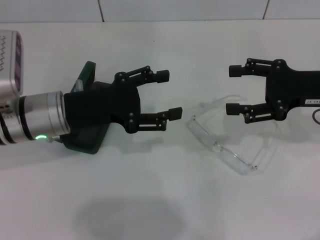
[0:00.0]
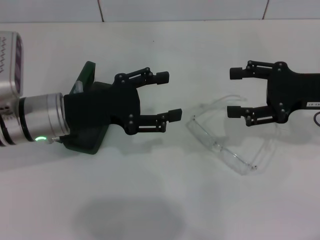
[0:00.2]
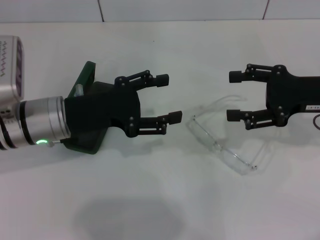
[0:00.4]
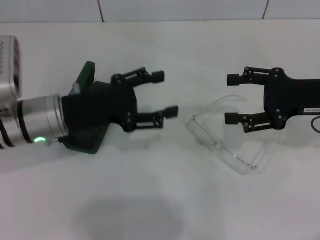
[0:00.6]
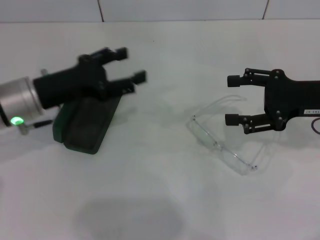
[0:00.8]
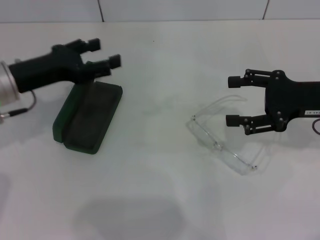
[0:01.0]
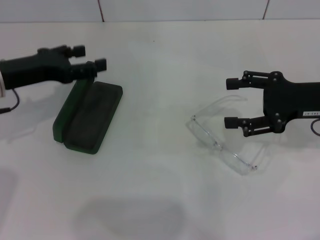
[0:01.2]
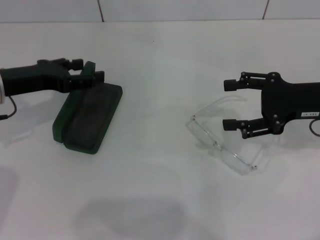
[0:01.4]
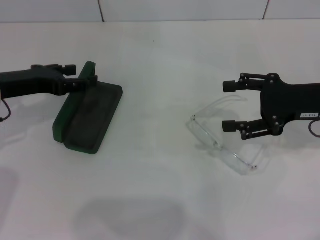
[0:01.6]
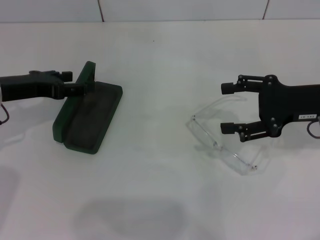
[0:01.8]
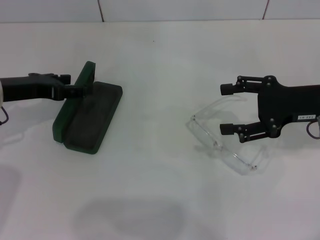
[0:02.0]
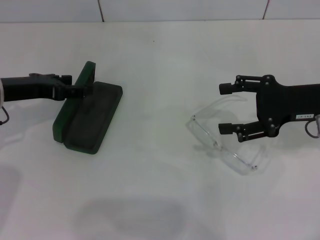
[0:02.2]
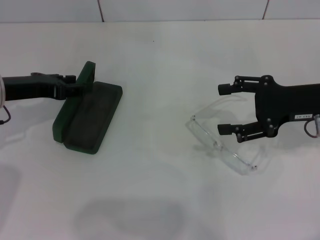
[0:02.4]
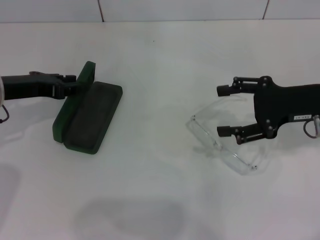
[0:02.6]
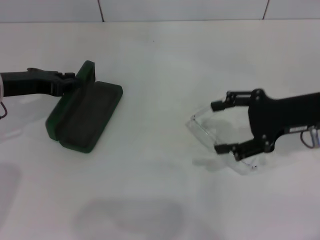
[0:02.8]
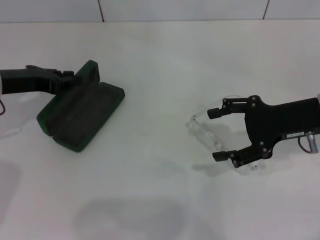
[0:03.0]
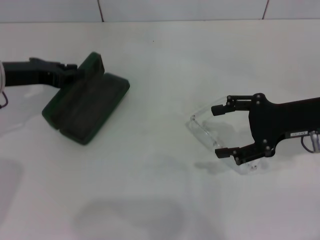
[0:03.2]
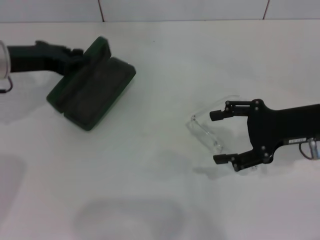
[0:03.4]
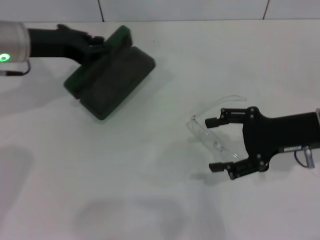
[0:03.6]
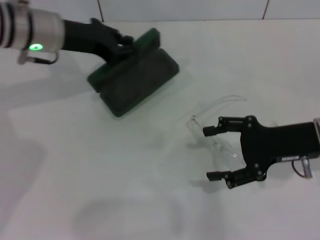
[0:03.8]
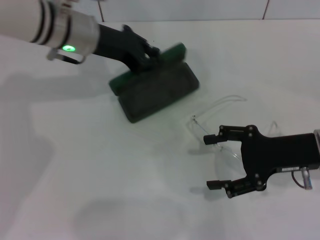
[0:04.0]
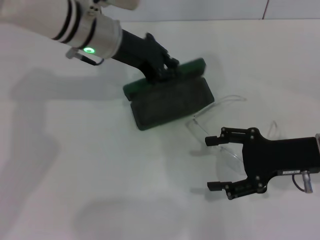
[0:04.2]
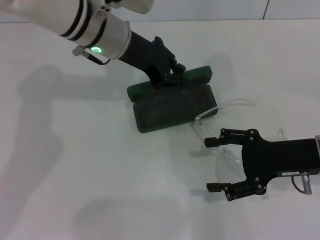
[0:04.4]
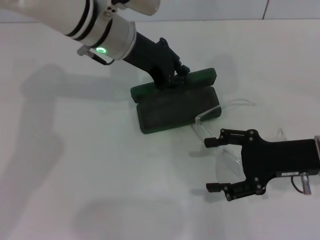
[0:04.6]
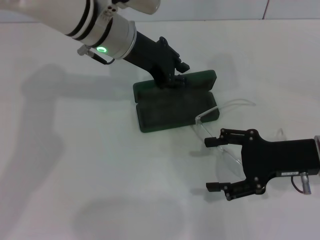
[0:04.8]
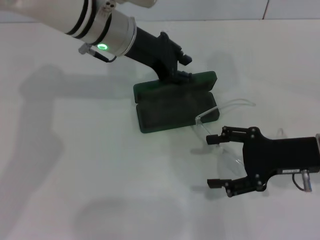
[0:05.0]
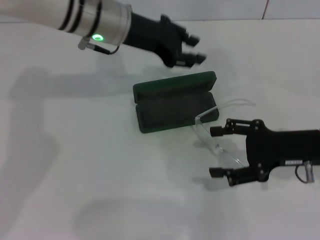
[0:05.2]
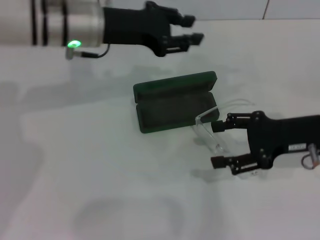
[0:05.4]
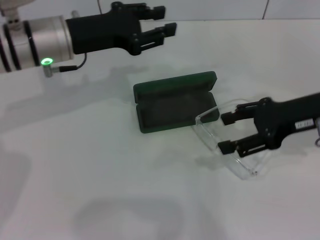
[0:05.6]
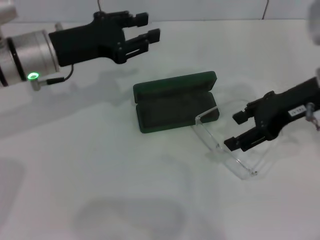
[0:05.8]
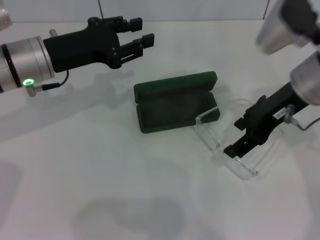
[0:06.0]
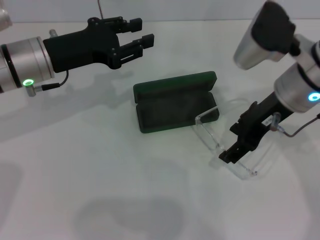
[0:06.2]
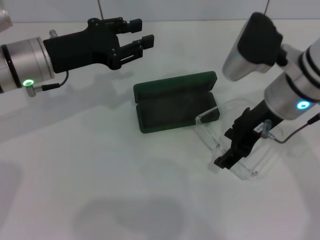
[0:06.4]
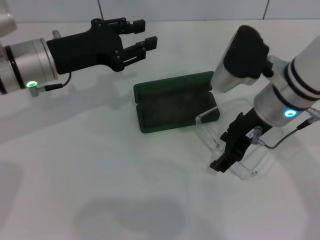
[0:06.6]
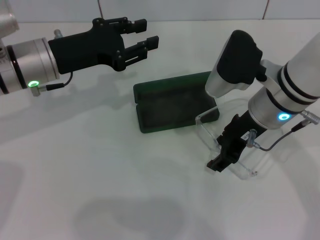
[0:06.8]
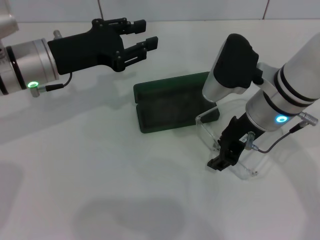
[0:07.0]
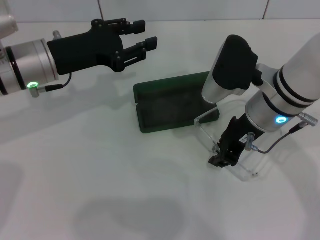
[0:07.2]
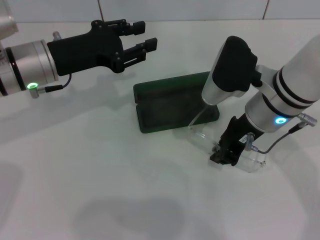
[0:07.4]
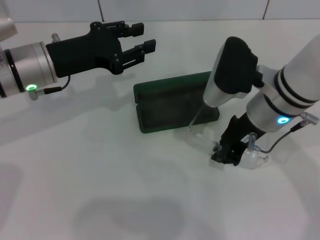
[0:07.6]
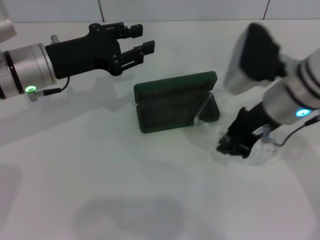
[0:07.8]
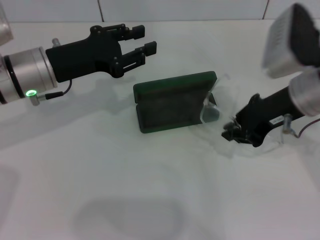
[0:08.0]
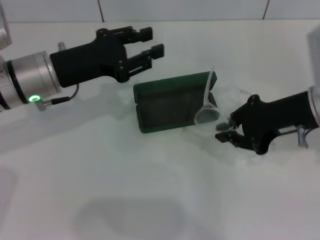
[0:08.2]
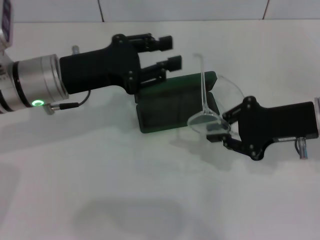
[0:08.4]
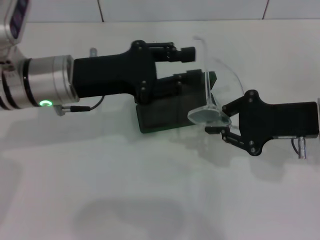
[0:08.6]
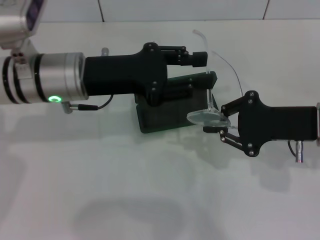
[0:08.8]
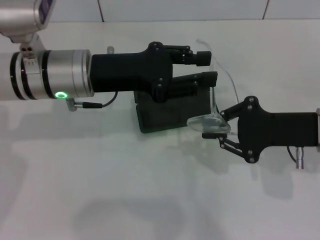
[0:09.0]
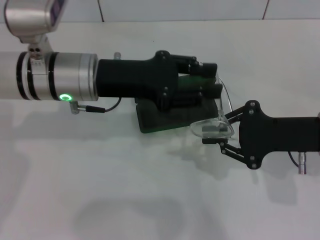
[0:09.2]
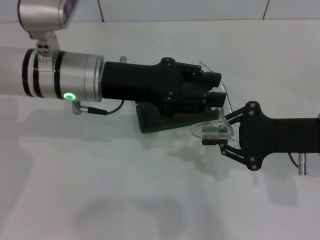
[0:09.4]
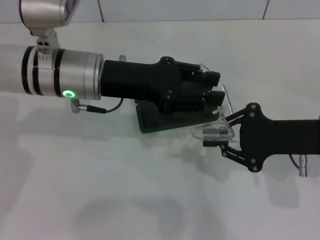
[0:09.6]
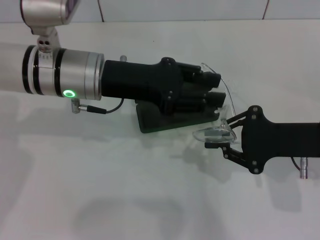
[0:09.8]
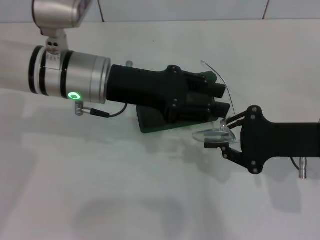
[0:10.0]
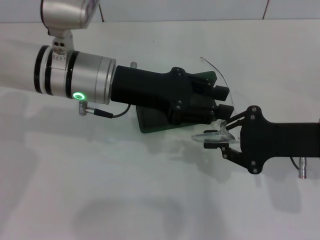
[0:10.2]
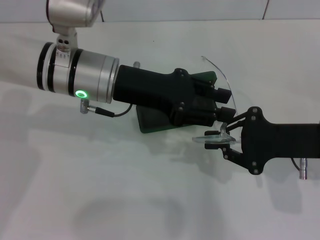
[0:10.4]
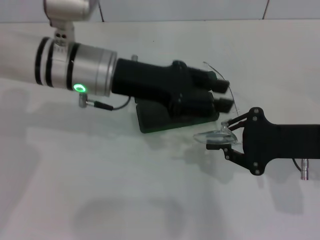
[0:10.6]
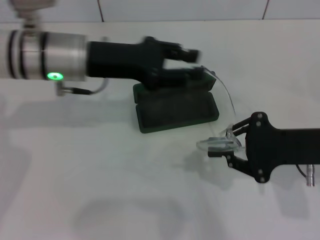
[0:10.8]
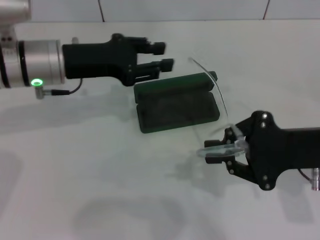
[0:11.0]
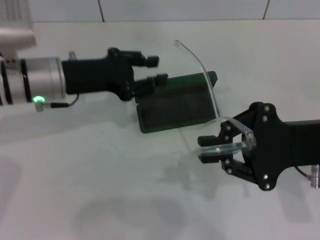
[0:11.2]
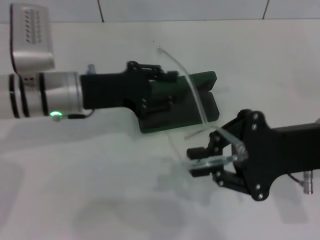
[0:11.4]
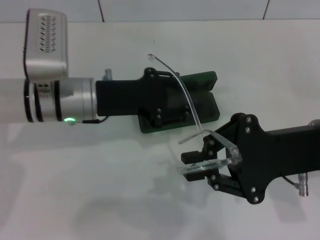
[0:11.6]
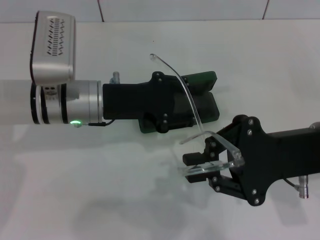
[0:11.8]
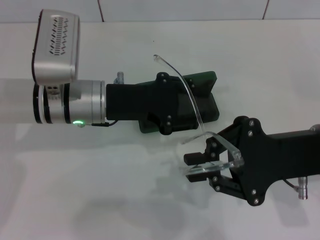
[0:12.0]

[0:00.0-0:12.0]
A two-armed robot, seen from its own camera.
Step, 0.0 to 2.6 s: Grab the glasses case with your left hand.
Step, 3.0 to 4.6 s: Place the glasses case in the center of the table with your left hand.
Step, 4.8 to 7.2 s: Grab the eyeglass frame with your right hand.
0.0 to 1.6 s: The left gripper heads to the left, covering approximately 10 cm.
1.6 to 3.0 s: The left gripper closes.
3.0 to 4.4 s: The left gripper heads to the right, covering some 20 cm; the right gripper moves approximately 5 cm.
4.4 to 6.0 s: The left gripper shifts about 15 cm to the left and backward, and opens up; the right gripper moves upward, to the left and forward, some 15 cm.
6.0 to 7.6 s: The right gripper ends up approximately 5 cm from where it was, and closes.
7.6 to 9.0 s: The left gripper goes about 5 cm to the right, while the right gripper moves to the right, roughly 10 cm.
9.0 to 10.4 s: There are only small adjustments of the grippers.
10.4 to 12.0 s: The left gripper reaches some 10 cm to the left, then returns.

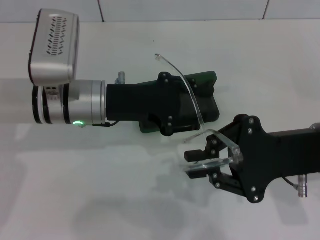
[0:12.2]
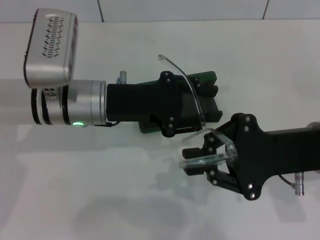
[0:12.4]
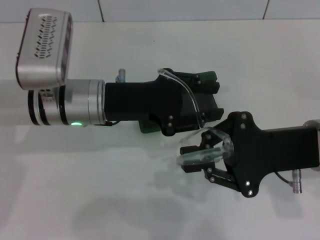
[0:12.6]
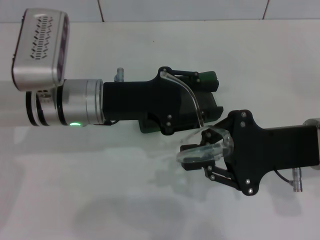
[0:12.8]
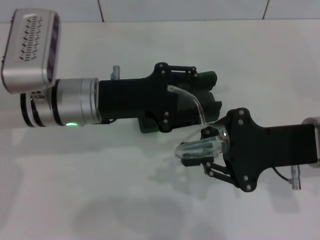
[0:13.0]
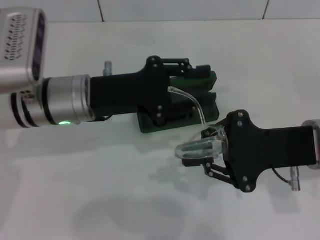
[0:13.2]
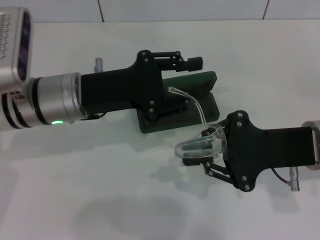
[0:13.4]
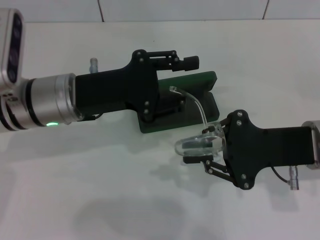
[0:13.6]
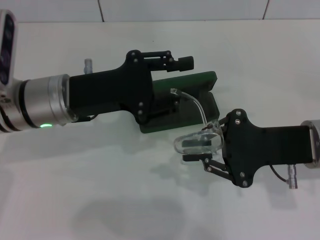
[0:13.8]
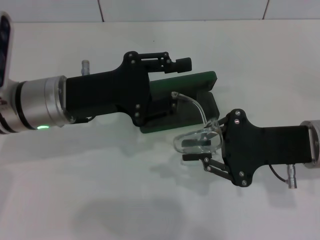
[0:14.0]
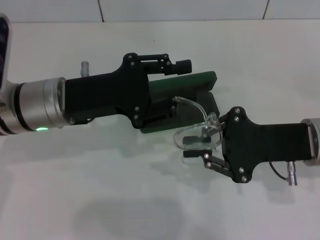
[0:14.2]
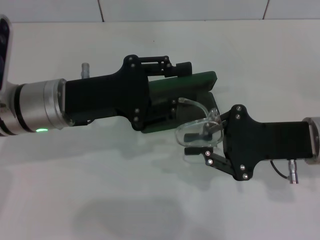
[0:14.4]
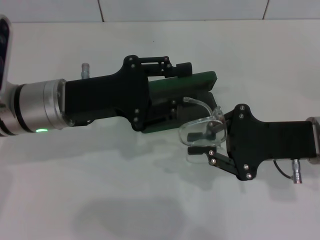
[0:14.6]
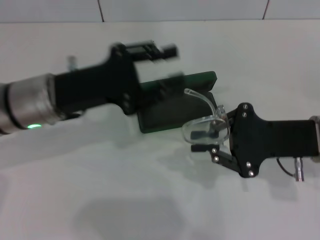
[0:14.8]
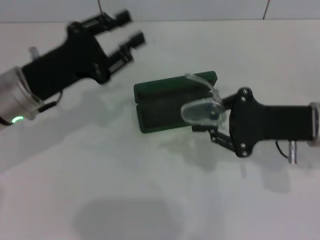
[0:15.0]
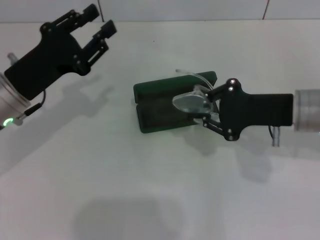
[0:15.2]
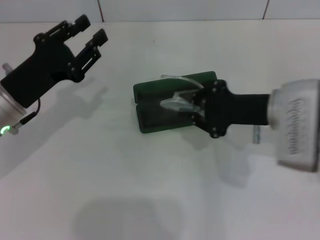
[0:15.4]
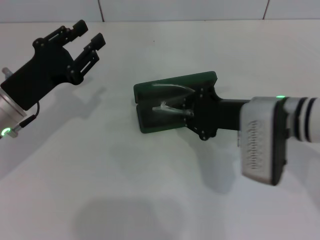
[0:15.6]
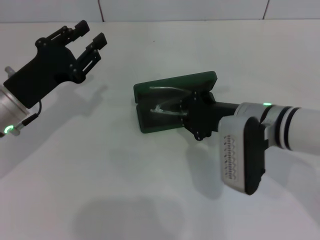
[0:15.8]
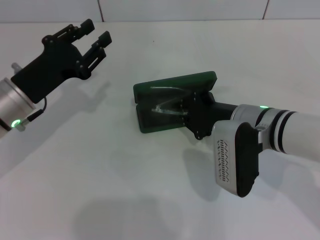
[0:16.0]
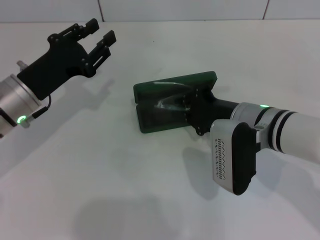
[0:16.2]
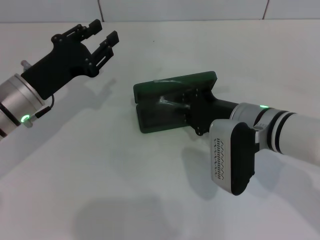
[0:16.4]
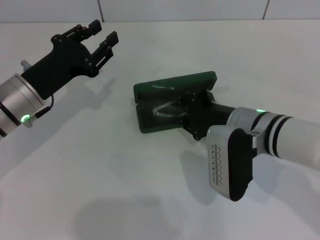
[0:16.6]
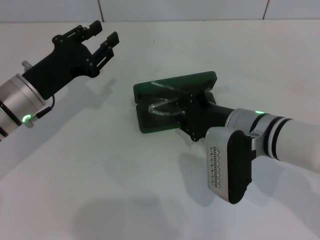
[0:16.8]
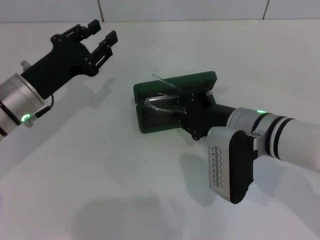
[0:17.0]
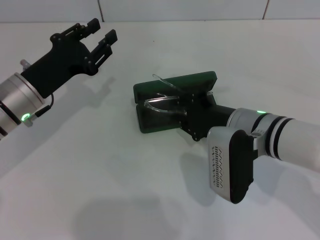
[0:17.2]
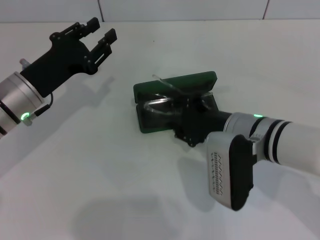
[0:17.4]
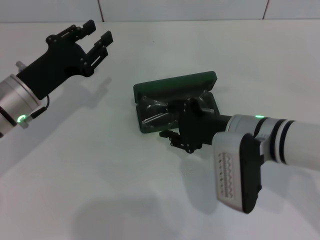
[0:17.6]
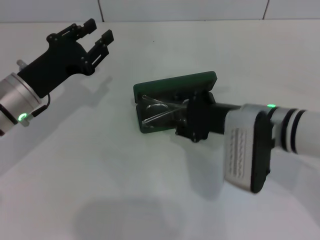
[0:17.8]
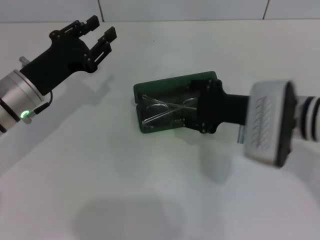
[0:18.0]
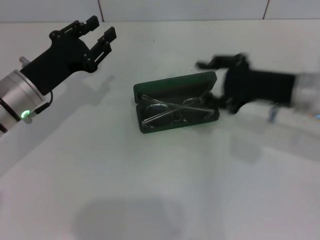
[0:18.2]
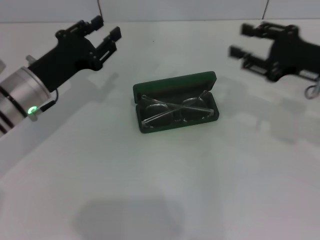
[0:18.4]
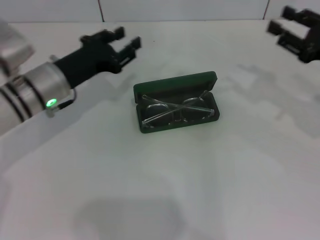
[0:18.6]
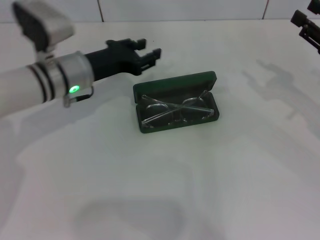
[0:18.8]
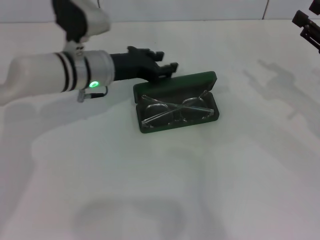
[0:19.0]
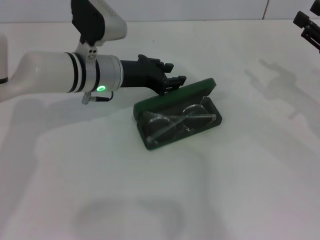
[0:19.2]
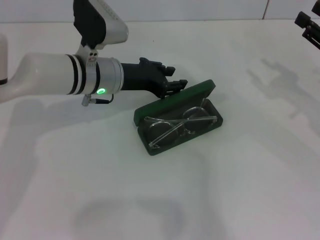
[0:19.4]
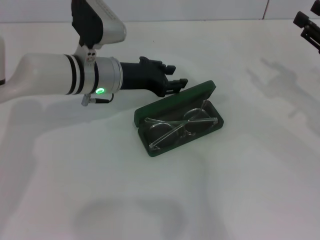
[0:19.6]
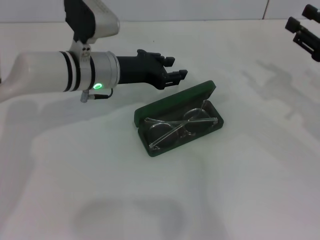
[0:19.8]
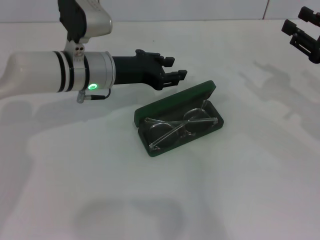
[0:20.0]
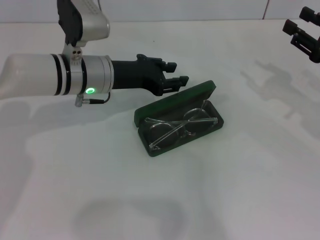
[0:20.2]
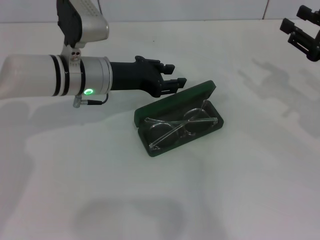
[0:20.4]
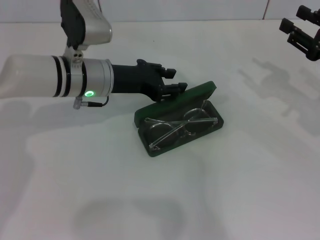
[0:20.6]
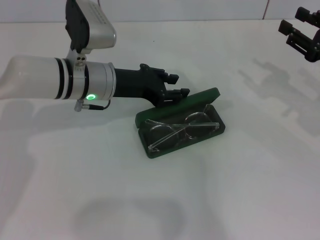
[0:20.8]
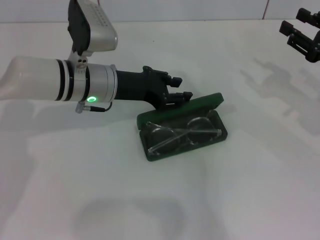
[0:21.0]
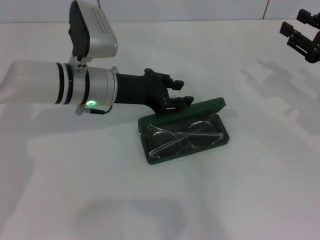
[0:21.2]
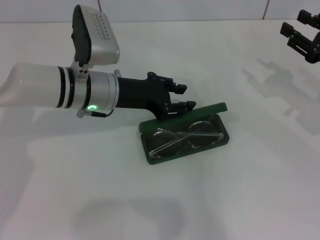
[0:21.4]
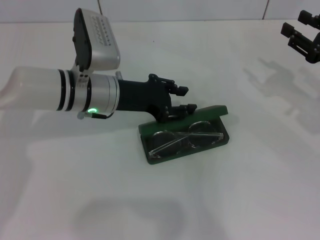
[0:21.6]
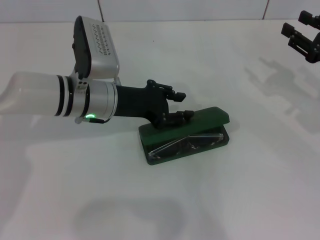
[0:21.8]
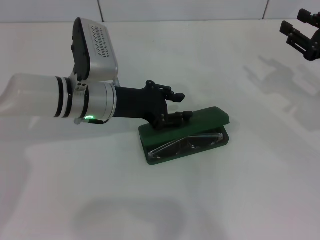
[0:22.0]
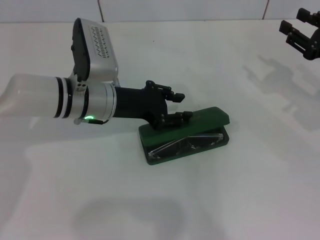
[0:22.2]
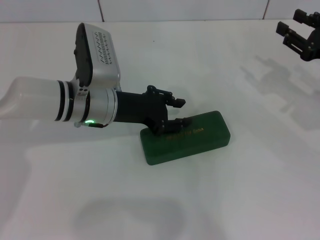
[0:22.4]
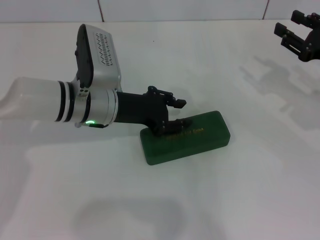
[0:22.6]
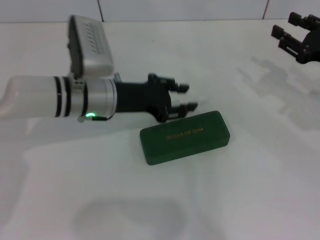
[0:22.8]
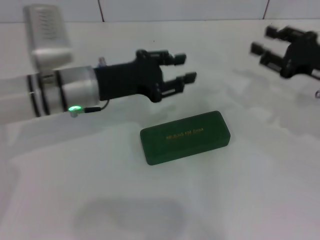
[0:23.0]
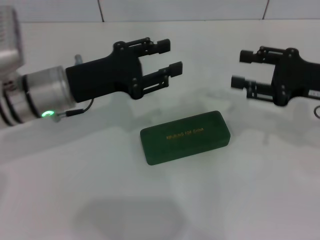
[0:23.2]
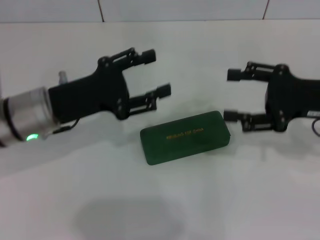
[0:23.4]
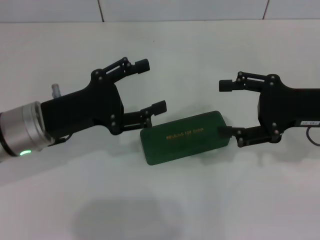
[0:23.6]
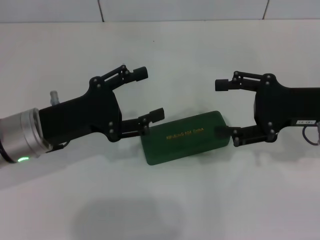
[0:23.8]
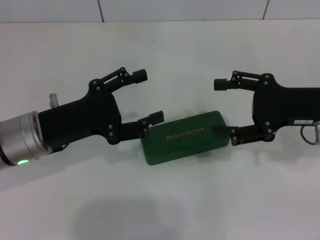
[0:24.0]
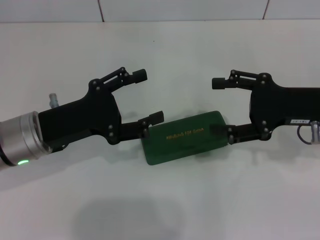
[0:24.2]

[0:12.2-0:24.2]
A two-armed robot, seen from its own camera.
Step, 14.2 to 17.8 s: Put the glasses into the case with your right hand.
Step, 18.0 to 22.4 s: Close the glasses case with your left hand.
13.8 to 15.2 s: The left gripper is displaced to the left by roughly 5 cm.
15.2 to 16.6 s: The right gripper moves to the left, some 10 cm.
16.6 to 18.2 s: The right gripper goes some 10 cm to the right and upward.
18.2 to 19.8 s: The right gripper is displaced to the right by roughly 10 cm. Meanwhile the left gripper moves to the right and forward, approximately 10 cm.
19.8 to 22.6 s: The grippers stay close to where they were, moving slightly.
22.6 to 24.2 s: The left gripper travels backward and to the left by roughly 10 cm, and opens its fingers; the right gripper is displaced to the left by roughly 5 cm, and opens up.
